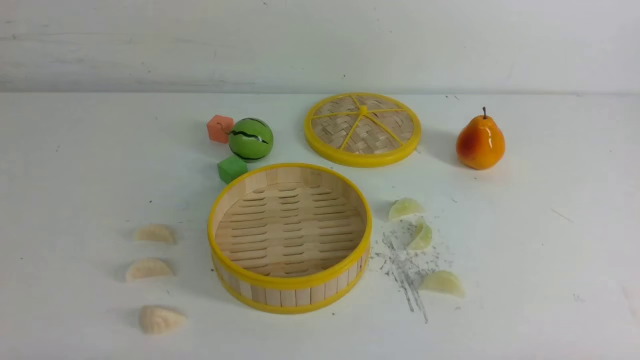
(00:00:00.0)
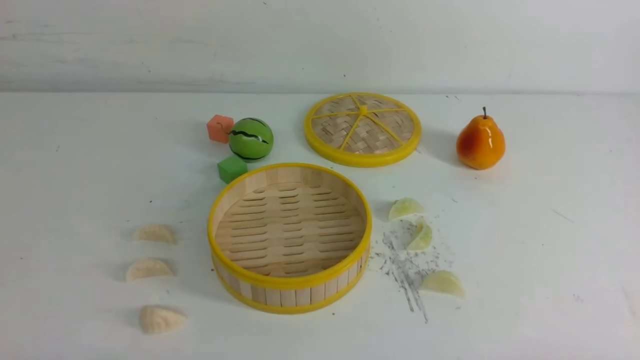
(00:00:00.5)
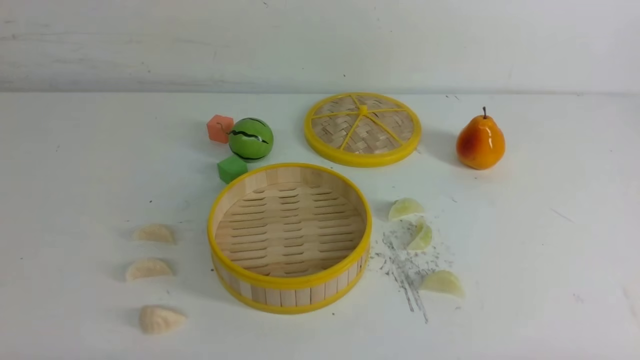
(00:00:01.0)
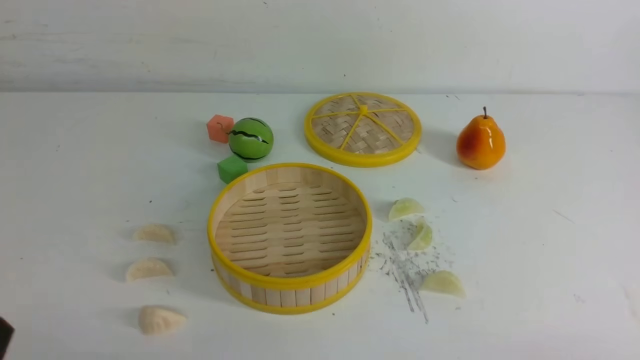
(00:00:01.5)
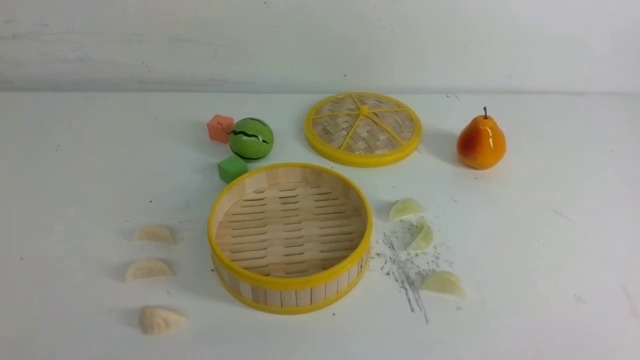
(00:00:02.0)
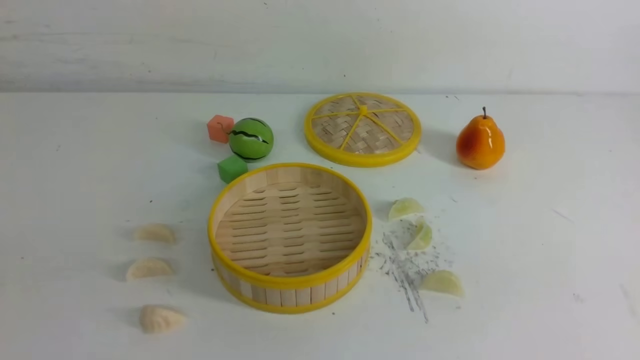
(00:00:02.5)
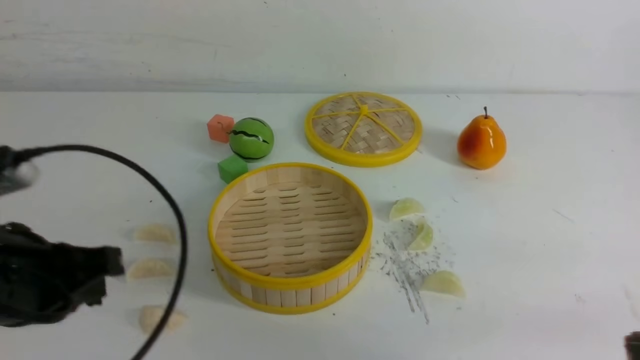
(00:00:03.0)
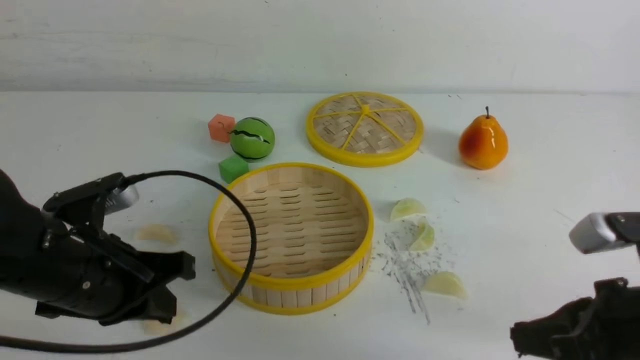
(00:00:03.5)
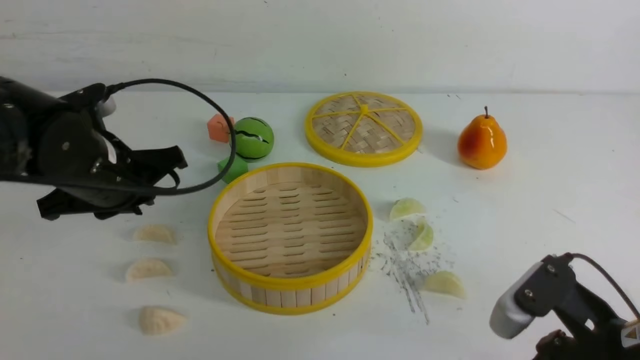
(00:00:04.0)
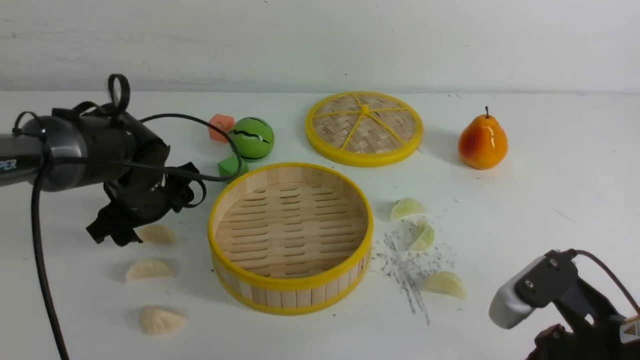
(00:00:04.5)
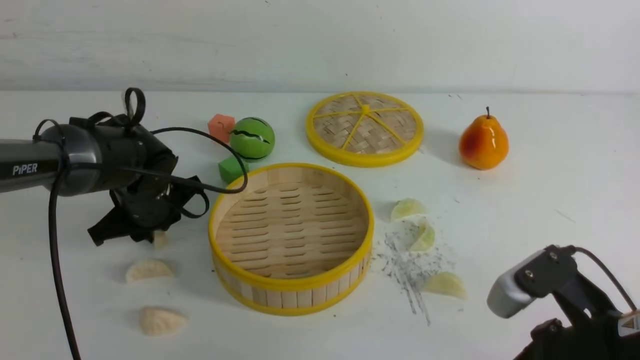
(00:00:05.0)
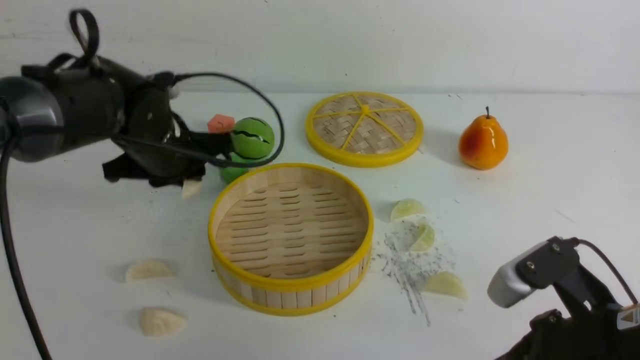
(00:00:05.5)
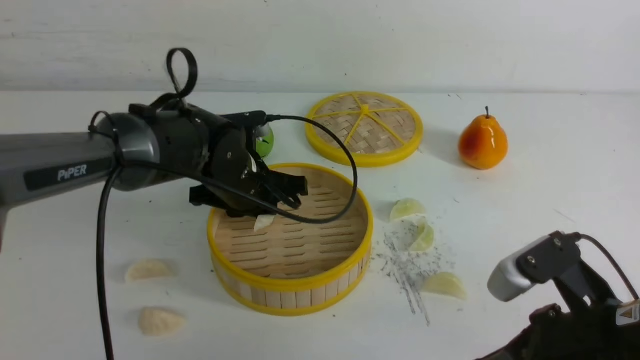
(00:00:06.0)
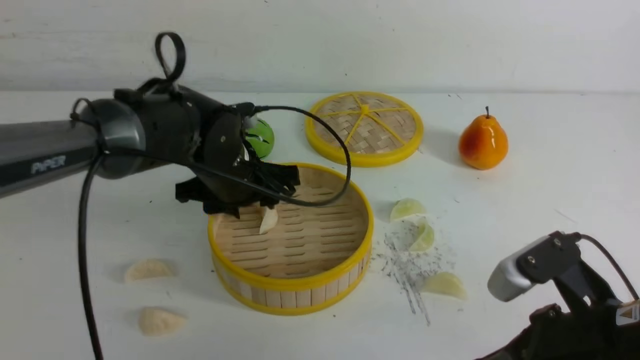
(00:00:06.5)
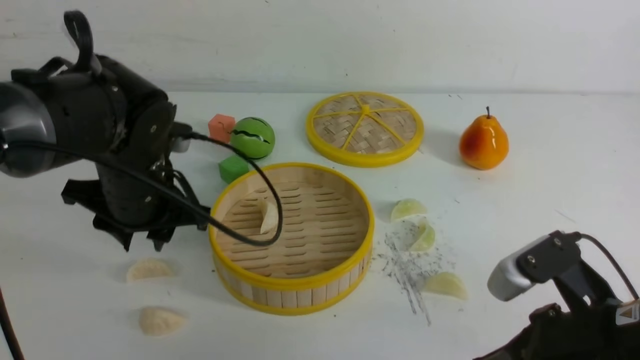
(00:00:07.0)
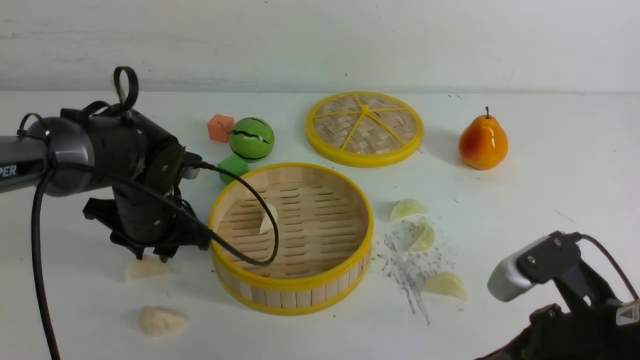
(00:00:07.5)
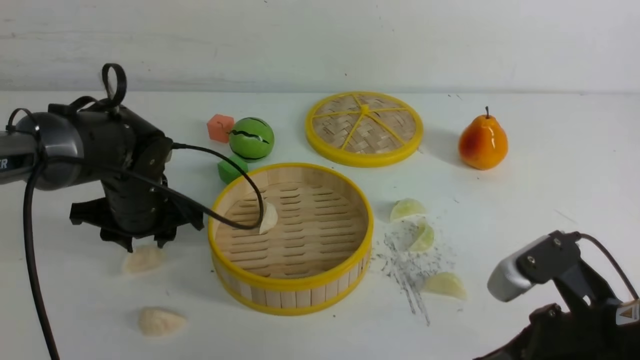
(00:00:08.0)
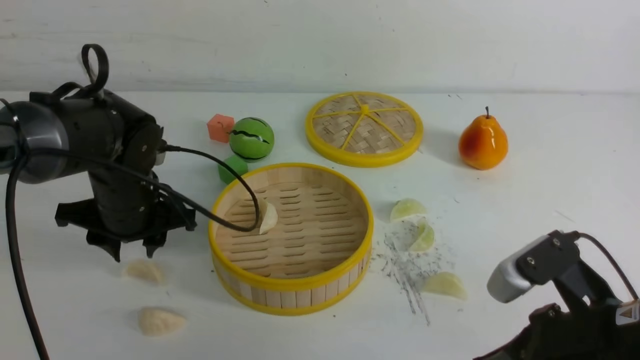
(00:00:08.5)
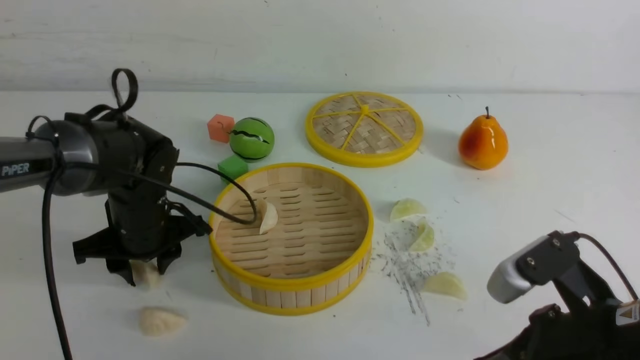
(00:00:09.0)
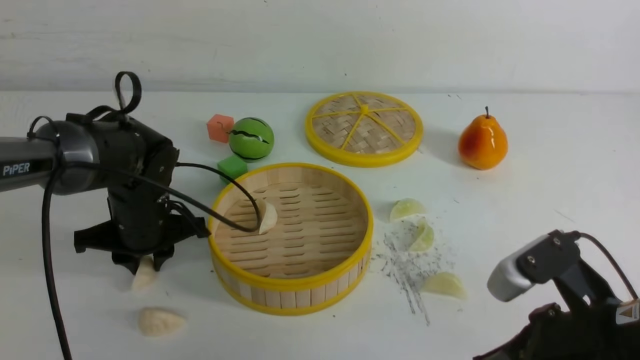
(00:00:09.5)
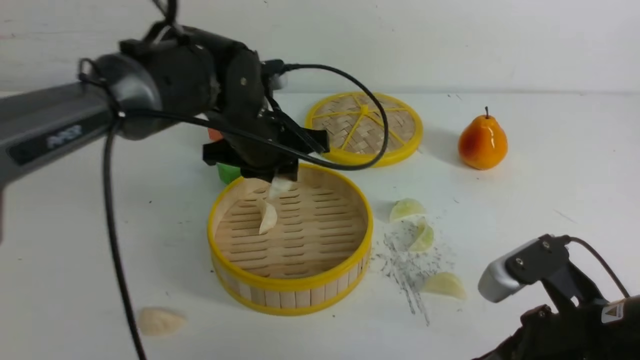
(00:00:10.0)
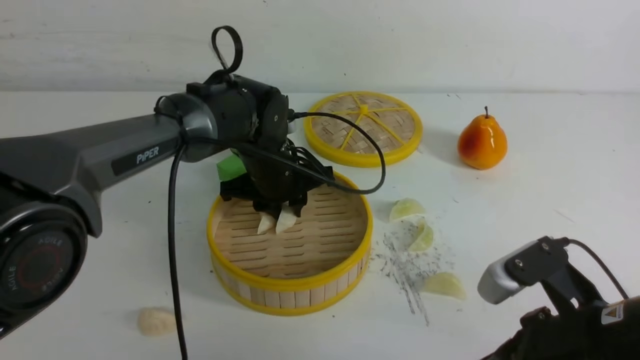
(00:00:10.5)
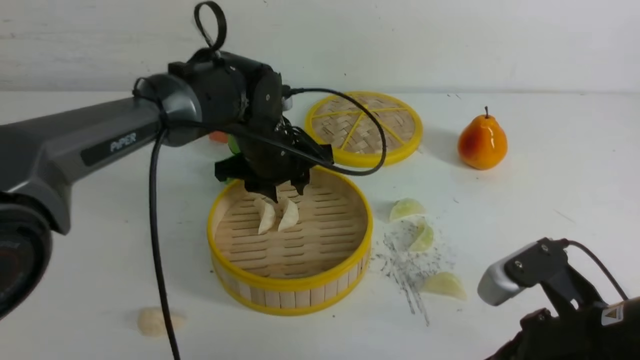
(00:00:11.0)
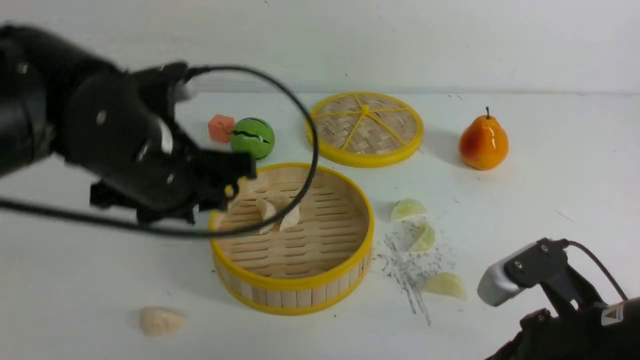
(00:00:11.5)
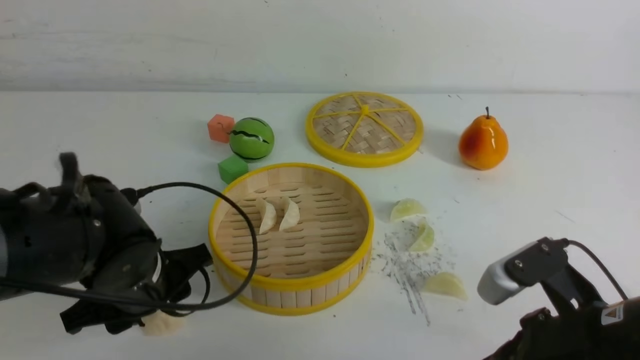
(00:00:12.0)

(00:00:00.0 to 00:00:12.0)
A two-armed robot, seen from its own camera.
Task of the whole recording: put the dumplings into the steamer on the white table.
Step, 00:00:00.0 - 00:00:05.0: use the left arm to grab a dumpling.
Step, 00:00:05.5 - 00:00:06.0: use the left arm to put the dumpling into the steamer.
Step, 00:00:07.0 - 00:00:09.5: use the left arm to grab a dumpling.
Step, 00:00:10.0 - 00:00:10.5: use the left arm to put the dumpling into the steamer.
00:00:02.0 - 00:00:04.0: The left gripper shifts roughly 30 cm forward, and closes, then opens again. Meanwhile the right gripper shifts roughly 15 cm forward and to the left, and closes.
00:00:04.0 - 00:00:06.0: The left gripper shifts roughly 15 cm to the right and forward, and opens, then closes once more.
00:00:06.0 - 00:00:08.0: The left gripper shifts about 10 cm to the left, and opens.
00:00:08.0 - 00:00:10.0: The left gripper travels to the right and upward by roughly 15 cm, and closes its fingers.
00:00:10.0 - 00:00:12.0: The left gripper goes roughly 15 cm backward, to the left and downward, and opens up.

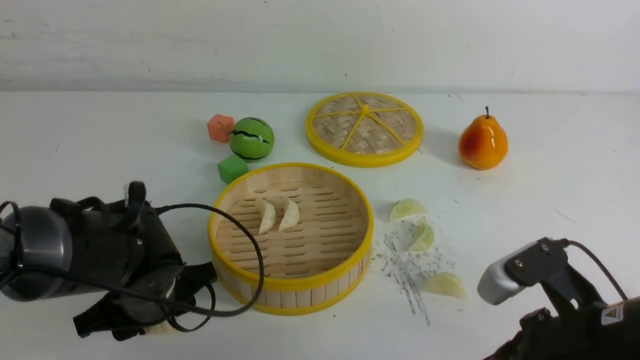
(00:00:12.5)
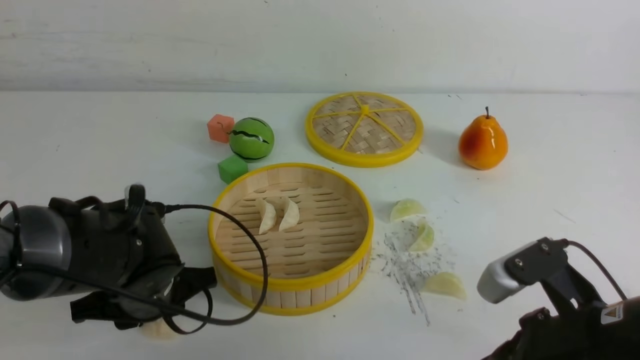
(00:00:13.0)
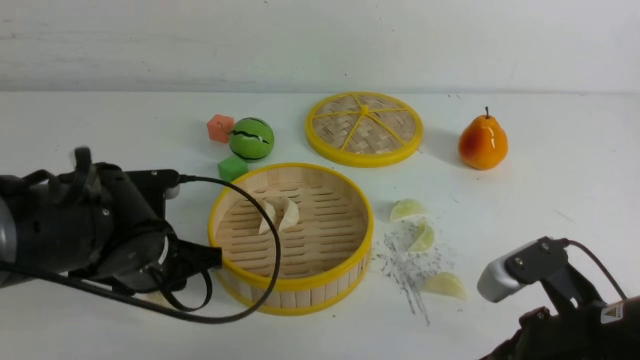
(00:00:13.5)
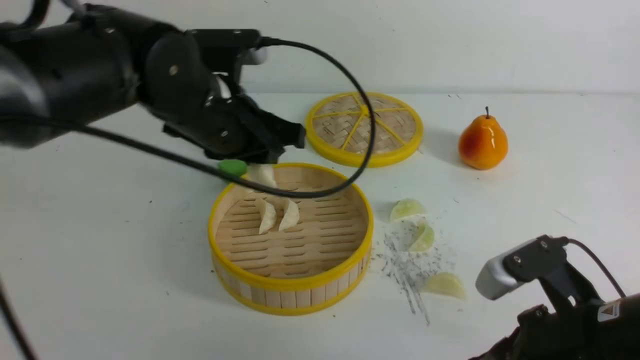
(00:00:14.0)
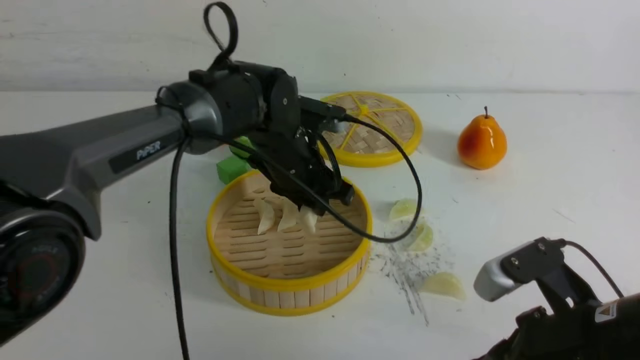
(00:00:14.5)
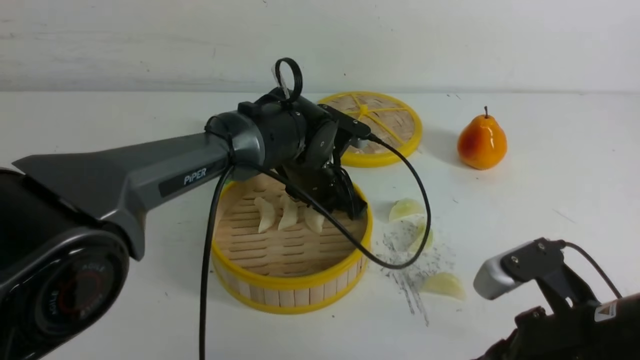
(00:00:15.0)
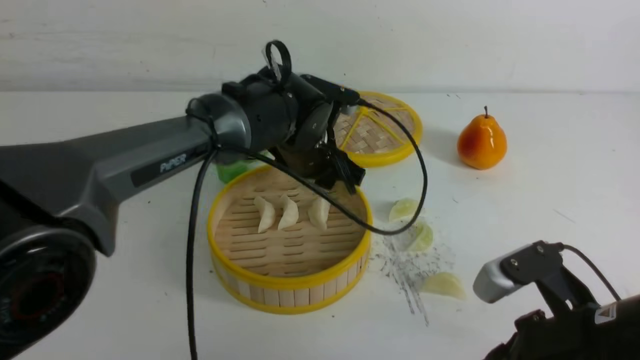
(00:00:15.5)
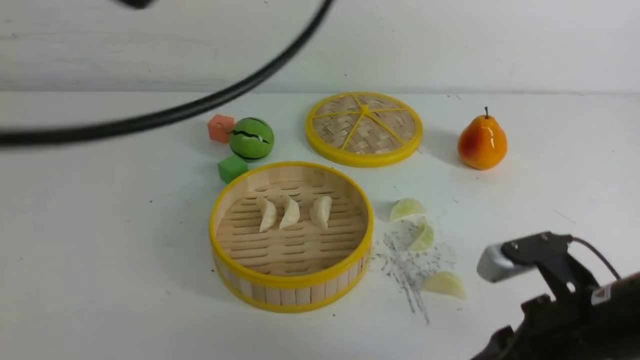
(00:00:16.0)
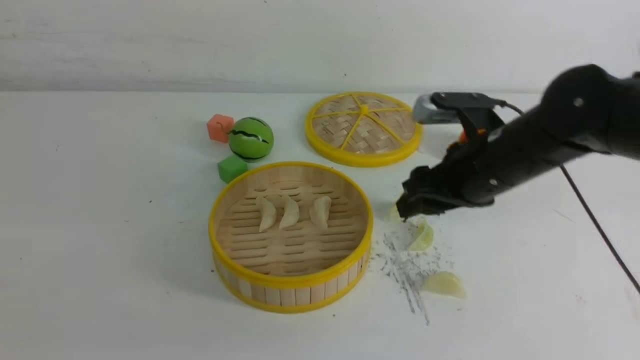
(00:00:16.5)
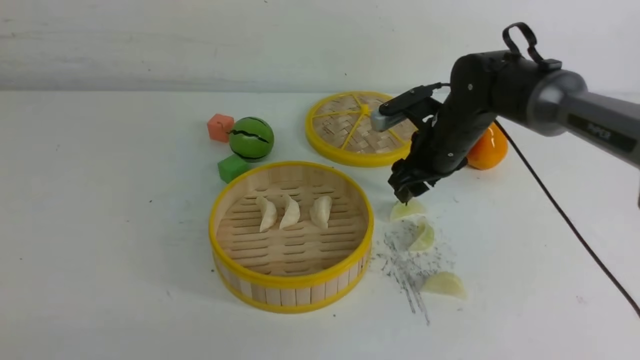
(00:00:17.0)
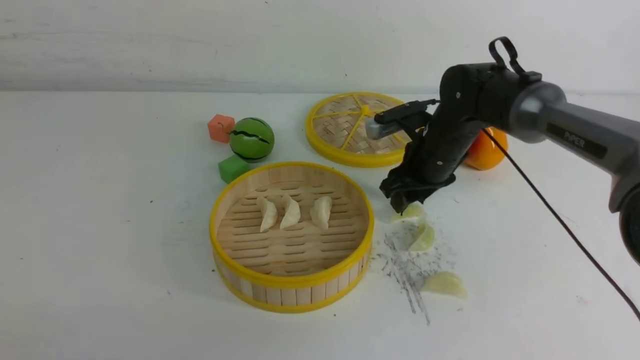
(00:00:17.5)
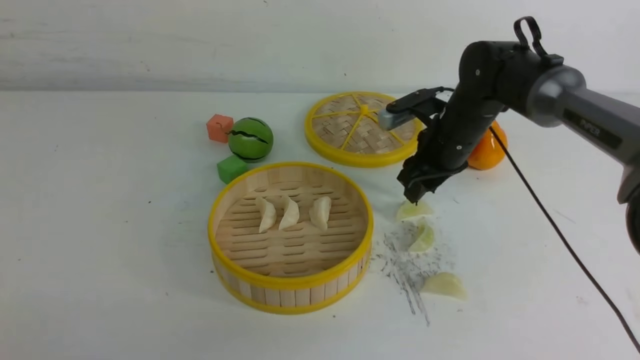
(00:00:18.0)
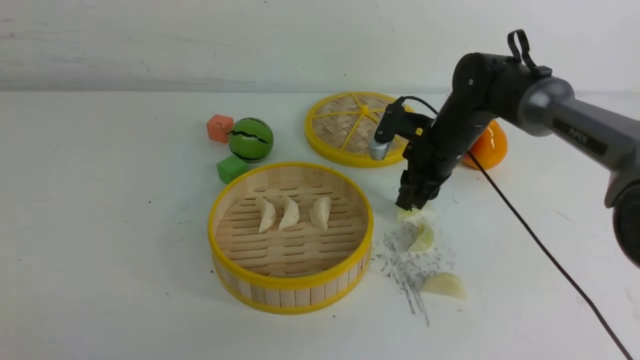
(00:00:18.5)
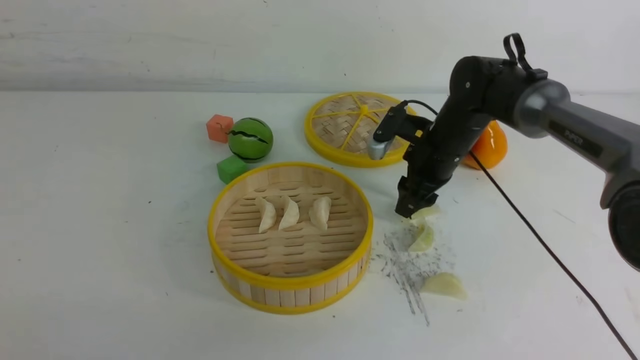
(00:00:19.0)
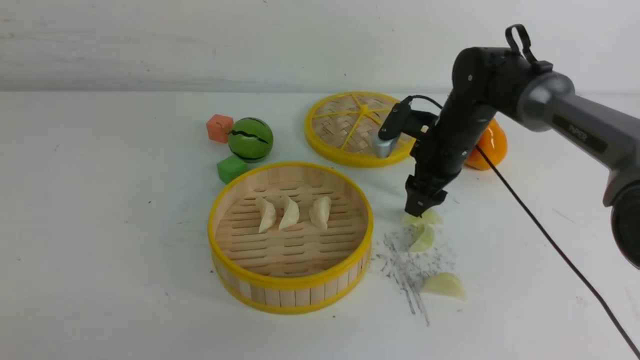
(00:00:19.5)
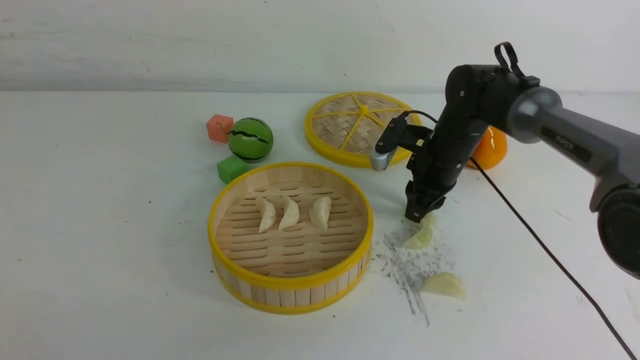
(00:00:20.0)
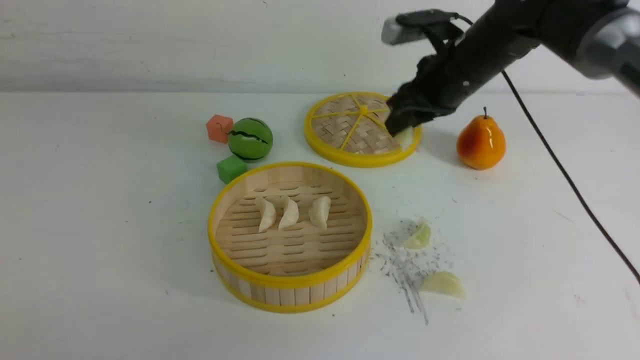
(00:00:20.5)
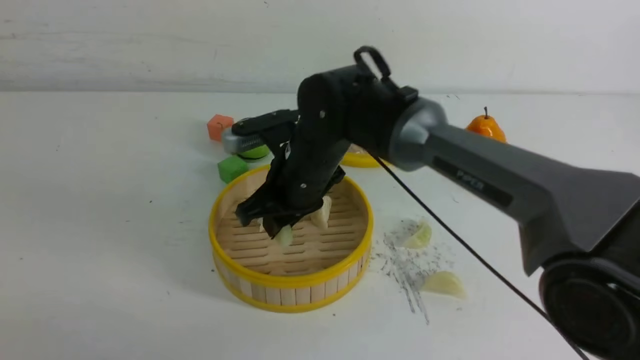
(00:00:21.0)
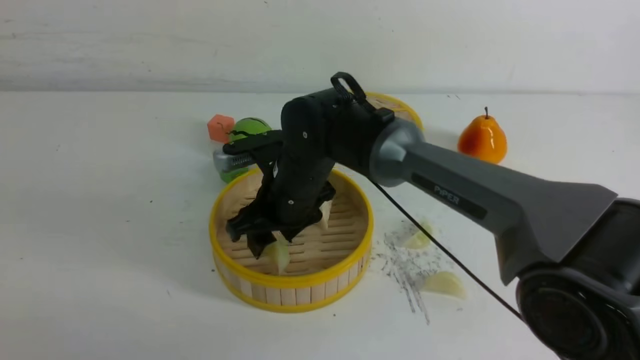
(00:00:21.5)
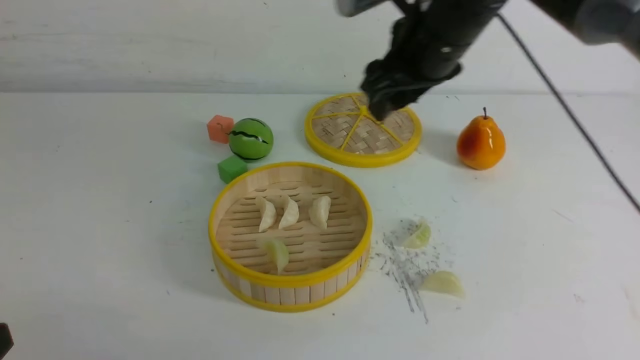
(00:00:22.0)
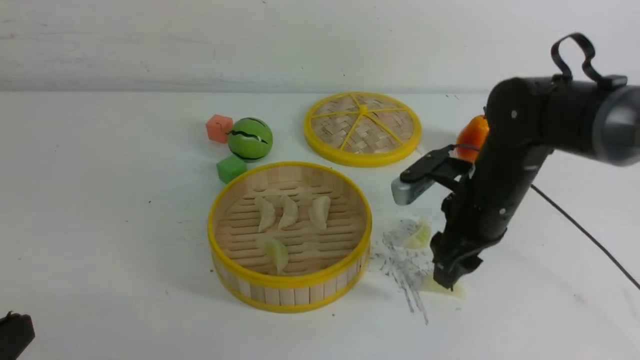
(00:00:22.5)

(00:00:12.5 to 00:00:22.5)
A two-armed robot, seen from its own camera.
Task of the whole recording: put the dumplings into the steamer on the white table.
Step, 00:00:13.5 - 00:00:15.0: use the left arm to put the dumpling into the steamer.
Step, 00:00:15.5 - 00:00:20.0: use the right arm to grab a dumpling.
Step, 00:00:20.5 - 00:00:21.5: use the right arm to put the dumpling into the steamer.
00:00:12.5 - 00:00:14.5: The left gripper travels forward, to the right and upward by some 20 cm.
00:00:14.5 - 00:00:16.5: The left gripper moves backward and to the left, some 40 cm, and closes its fingers, while the right gripper shifts roughly 20 cm forward, and opens.
00:00:16.5 - 00:00:18.5: The left gripper shifts some 10 cm downward. The right gripper goes some 15 cm forward and downward, and closes its fingers.
00:00:18.5 - 00:00:20.5: The right gripper heads upward, covering some 10 cm, and opens, then closes once more.
00:00:20.5 - 00:00:22.5: The right gripper moves backward and downward, some 10 cm, goes to the left and returns, approximately 15 cm each way, and opens.
